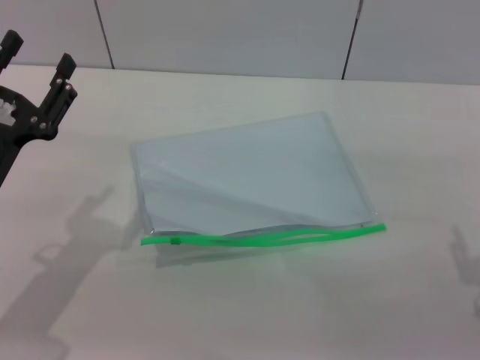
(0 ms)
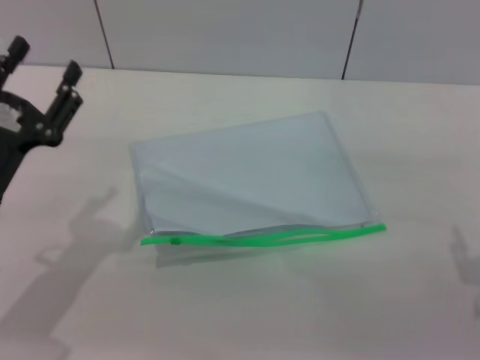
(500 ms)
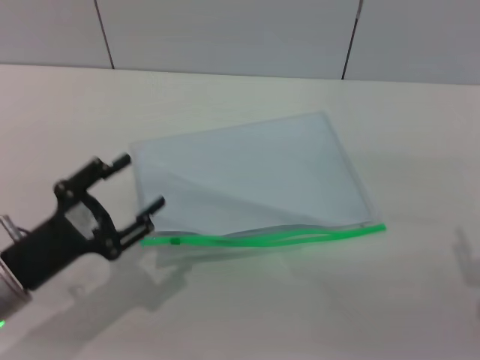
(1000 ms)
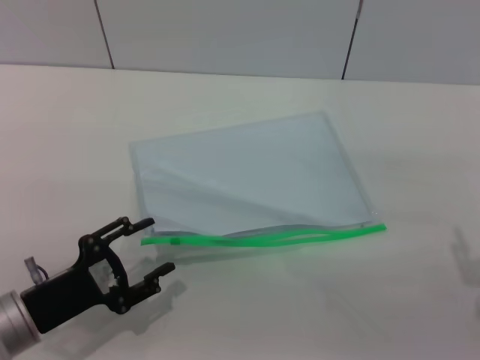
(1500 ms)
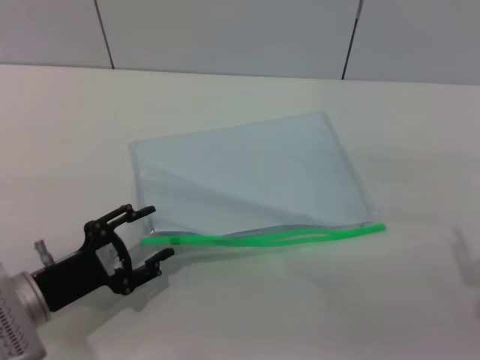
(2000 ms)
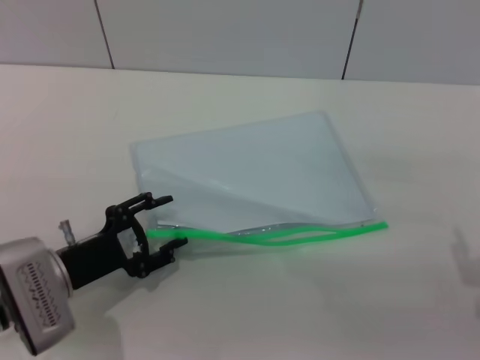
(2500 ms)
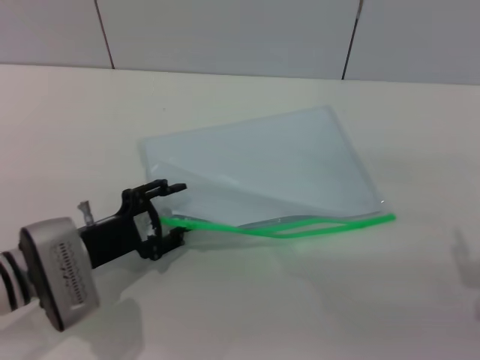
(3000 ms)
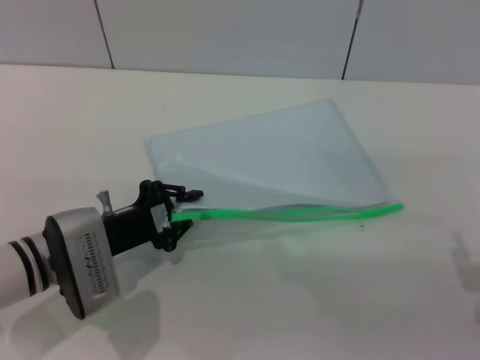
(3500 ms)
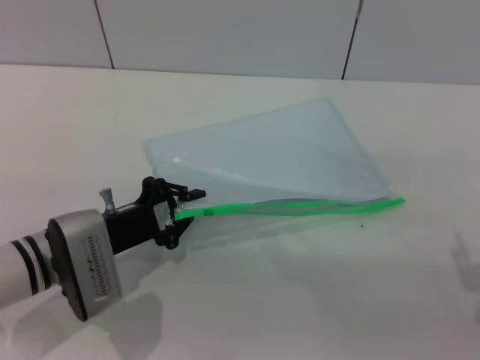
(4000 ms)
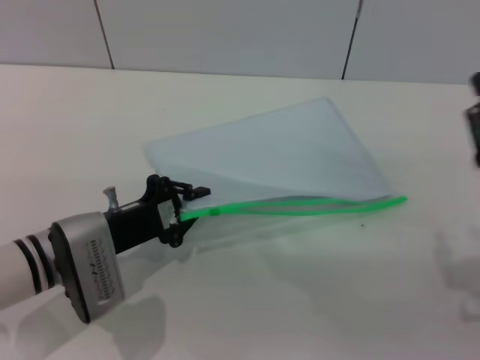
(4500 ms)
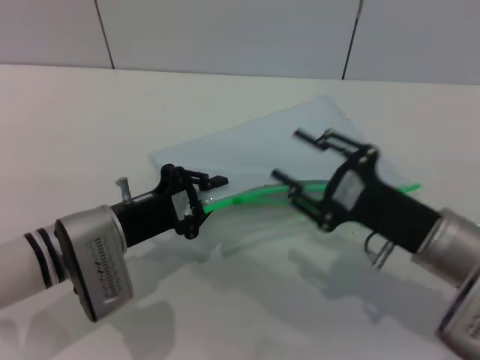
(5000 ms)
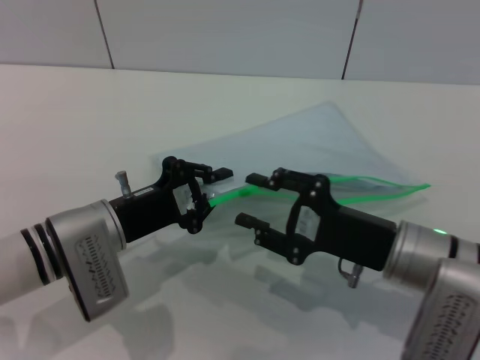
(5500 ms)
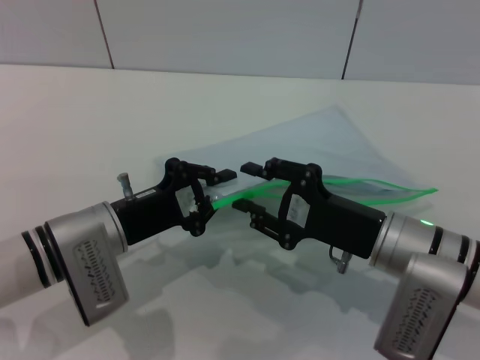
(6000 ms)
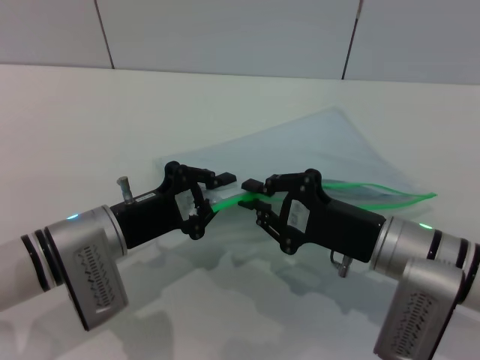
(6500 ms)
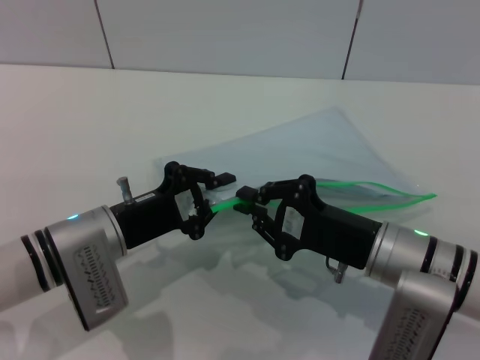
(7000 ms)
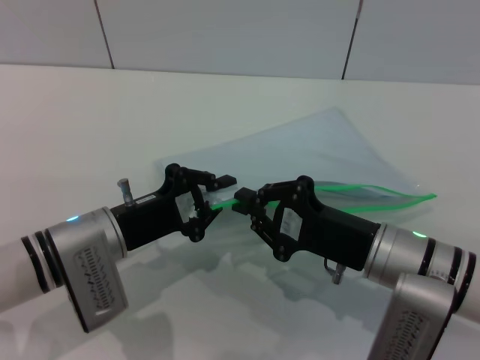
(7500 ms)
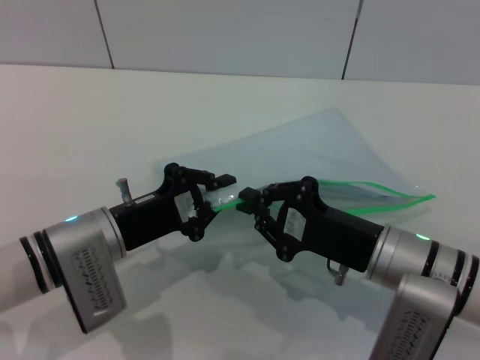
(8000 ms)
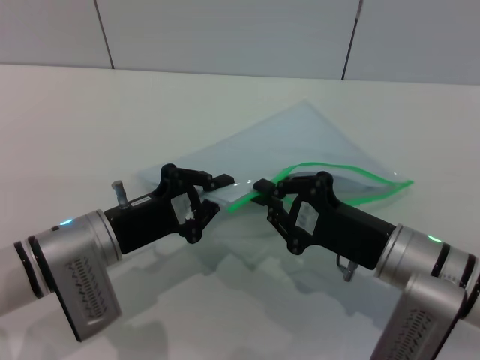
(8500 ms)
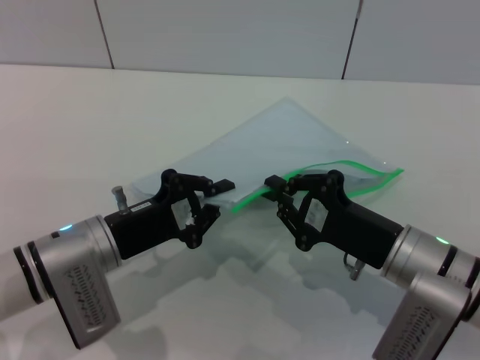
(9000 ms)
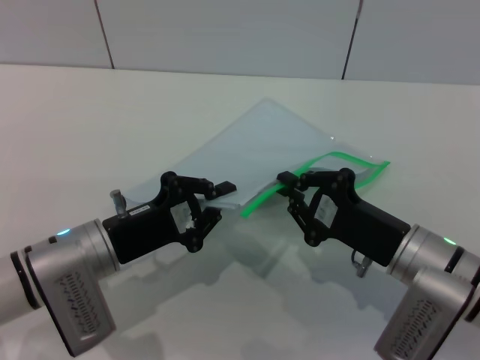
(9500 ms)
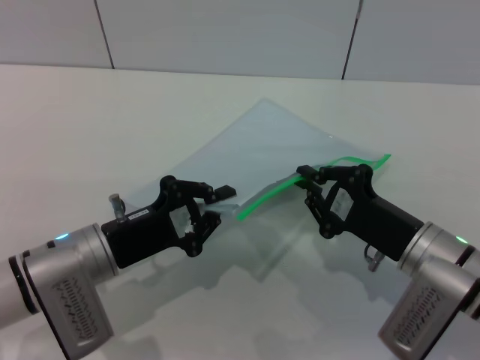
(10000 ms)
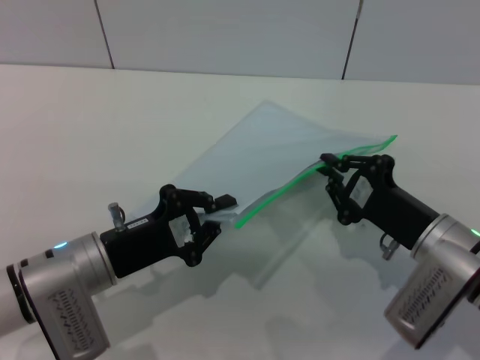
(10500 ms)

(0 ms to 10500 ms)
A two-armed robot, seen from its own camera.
Step, 0 ms - 4500 ms: Pick up the transparent plastic bag with the left gripper.
0 ms - 2000 ms: The left gripper goes approximately 5 cm downward.
2000 ms - 4000 ms: The left gripper moves forward, approximately 5 cm, and closes.
4000 ms - 6500 ms: The right gripper is displaced to the left and forward by some 10 cm.
6500 ms - 8500 ms: The grippers move only a little.

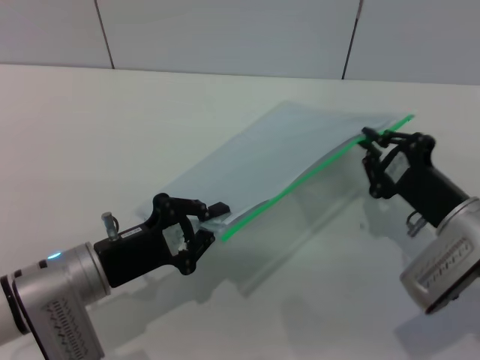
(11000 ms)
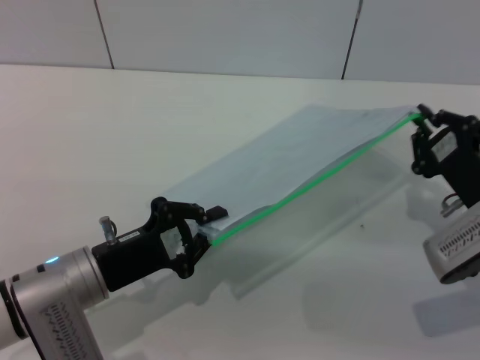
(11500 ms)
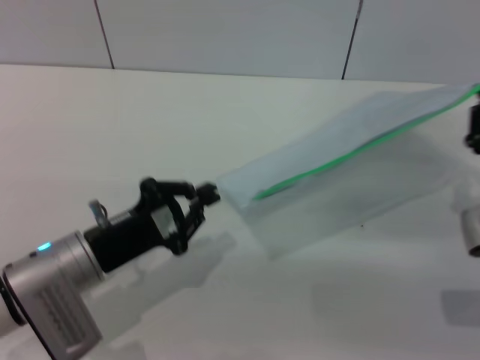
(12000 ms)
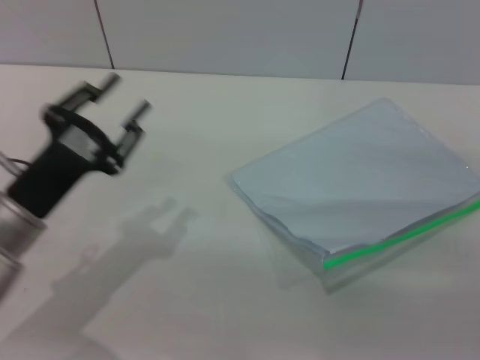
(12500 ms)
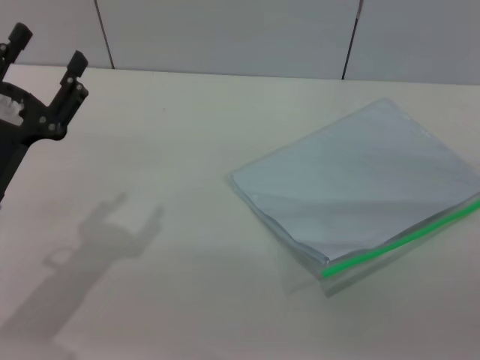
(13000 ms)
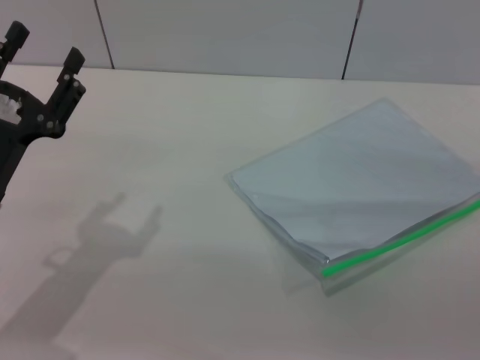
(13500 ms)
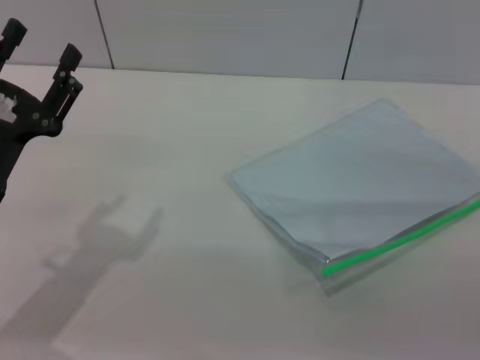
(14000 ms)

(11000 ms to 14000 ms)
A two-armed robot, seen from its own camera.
11000 ms - 12500 ms: The right gripper goes some 10 cm to the right and backward. Meanwhile the left gripper ends up about 5 cm from where it was, and opens its fingers.
12500 ms - 14000 ms: The left gripper opens its fingers.

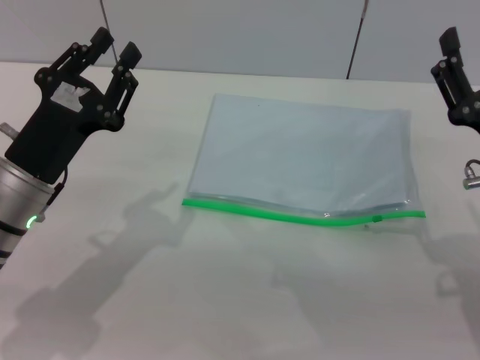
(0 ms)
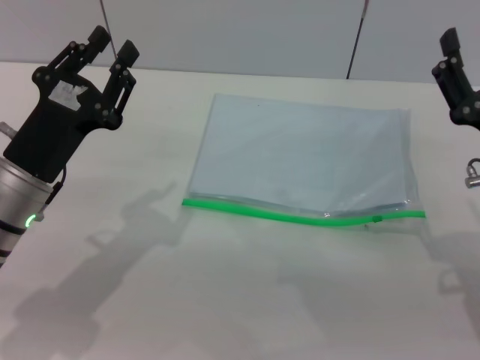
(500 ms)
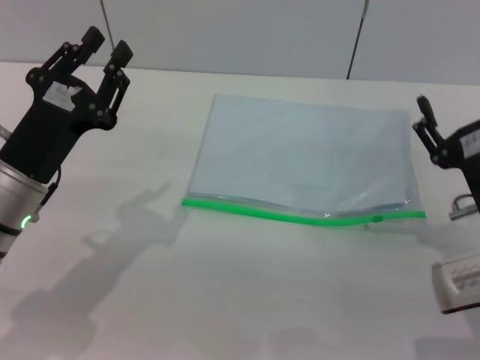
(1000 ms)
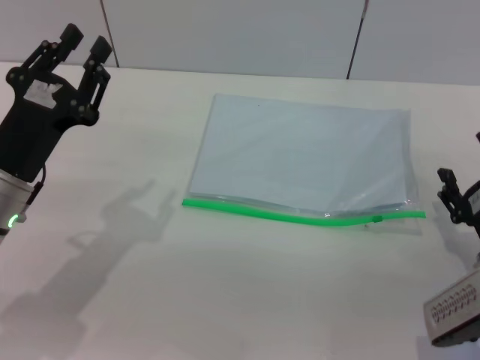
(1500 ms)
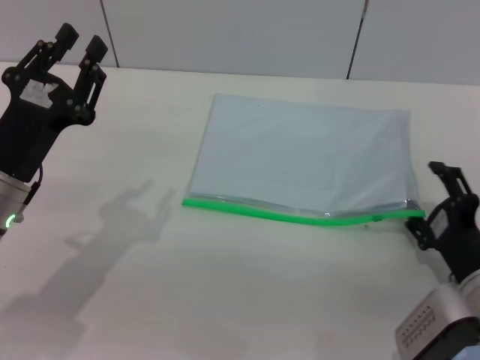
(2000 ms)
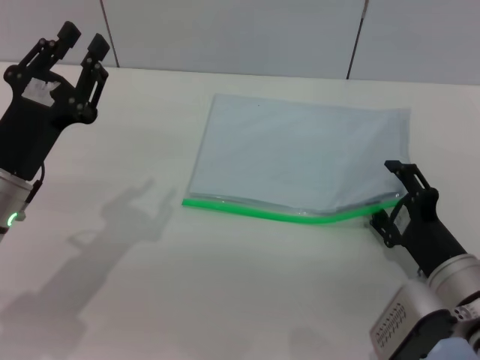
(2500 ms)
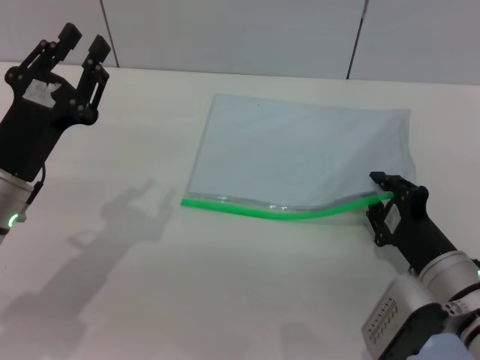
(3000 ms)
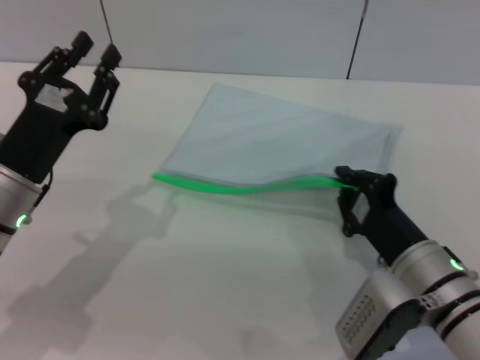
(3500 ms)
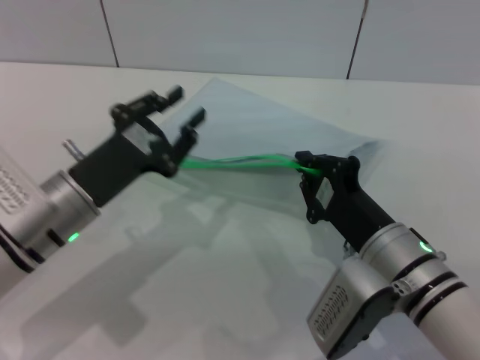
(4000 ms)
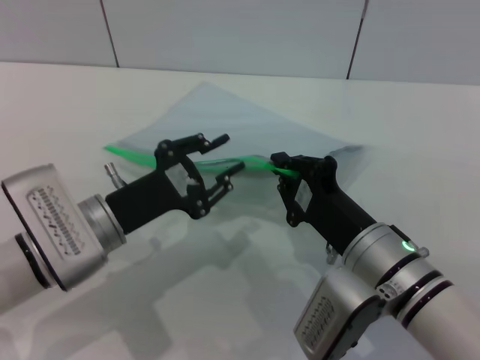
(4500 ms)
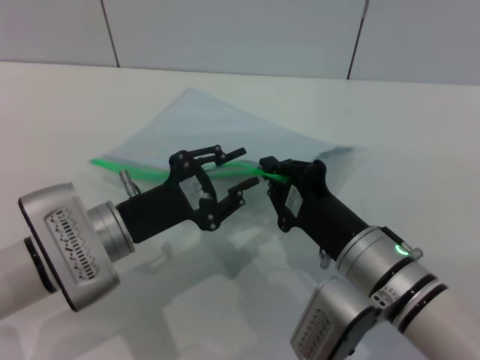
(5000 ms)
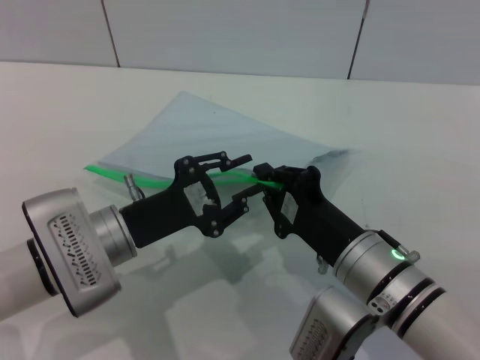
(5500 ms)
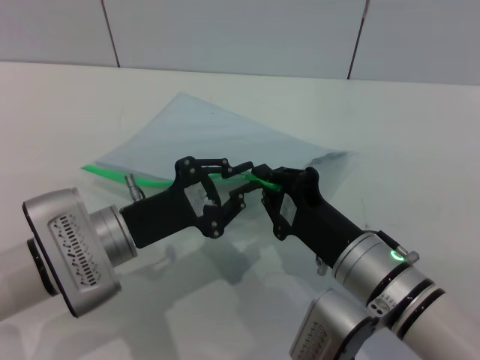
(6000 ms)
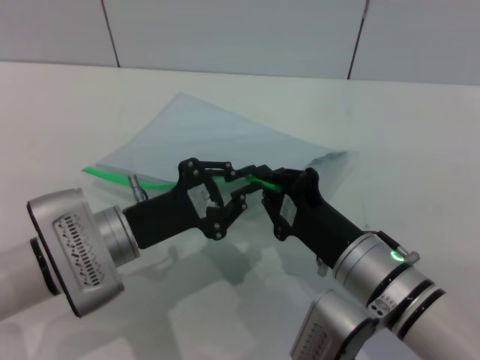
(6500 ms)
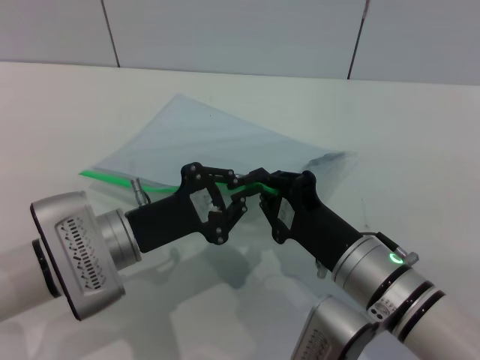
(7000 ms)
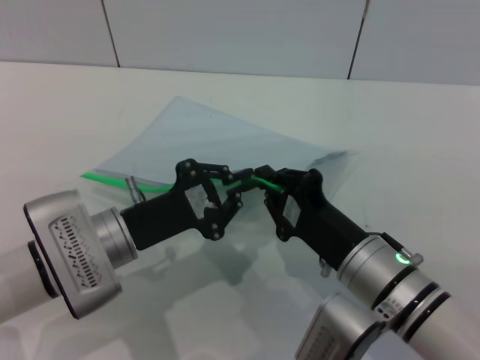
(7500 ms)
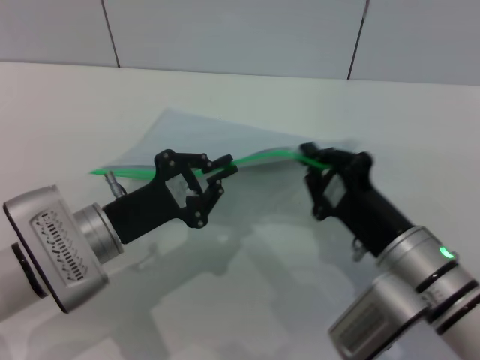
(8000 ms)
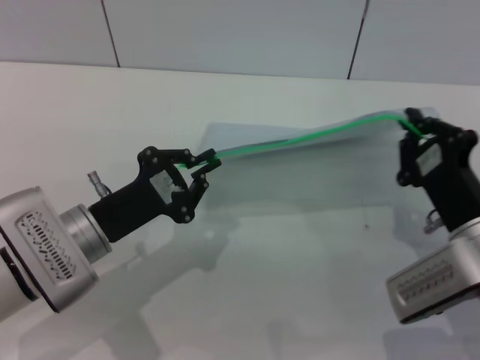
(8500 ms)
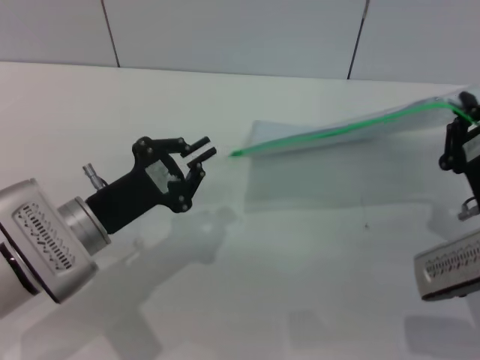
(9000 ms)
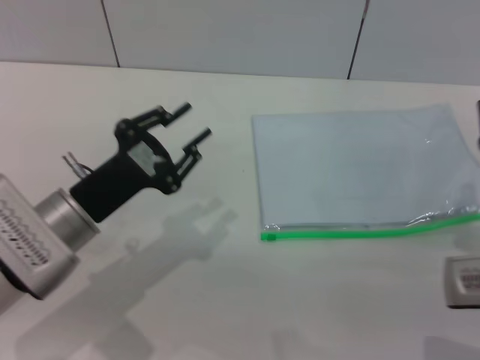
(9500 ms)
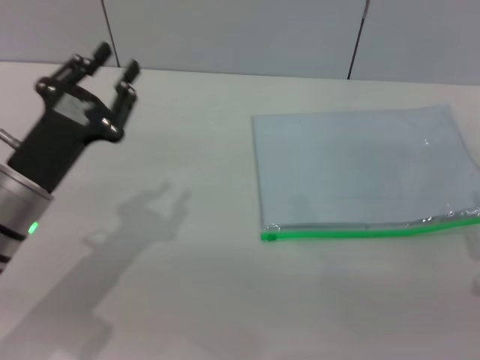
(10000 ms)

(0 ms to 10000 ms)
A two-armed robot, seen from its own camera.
Step, 0 ms - 4000 ms: Pick up the transparent plastic bag with the right gripper.
Step, 4500 ms - 9000 ms: Pulling up the zipper on the transparent plastic bag with the left gripper to close it.
0 ms - 2000 ms: The right gripper travels downward by approximately 10 cm.
2000 ms - 4000 ms: The right gripper heads to the left, covering approximately 10 cm, and closes its fingers.
6000 ms - 8000 ms: The left gripper closes its fingers.
8000 ms - 10000 ms: The left gripper moves approximately 5 cm, and opens. The right gripper travels to the right by about 10 cm, and opens its fingers.

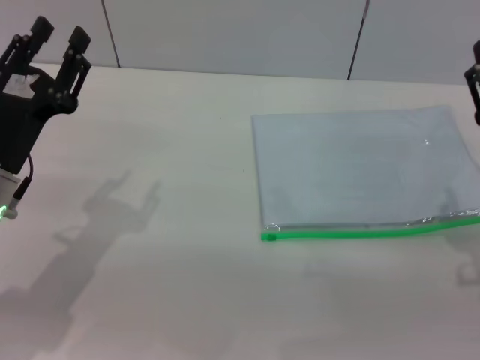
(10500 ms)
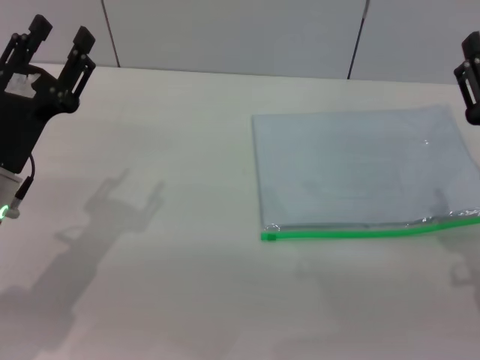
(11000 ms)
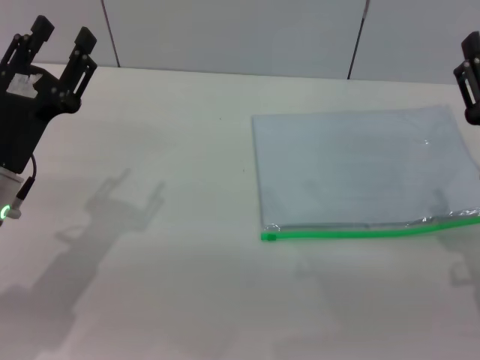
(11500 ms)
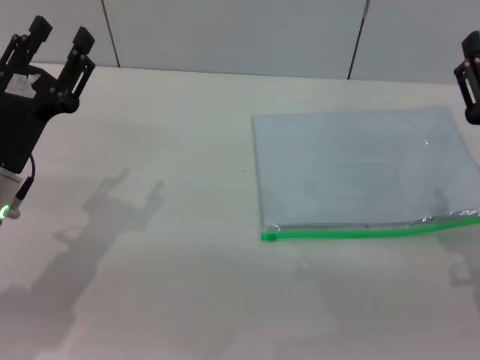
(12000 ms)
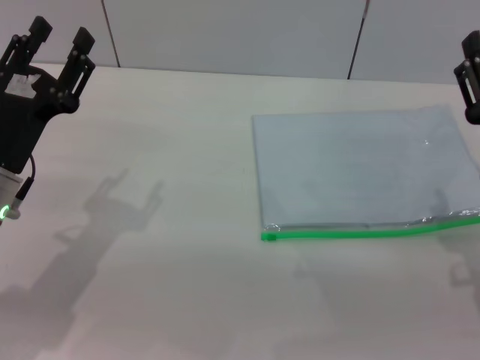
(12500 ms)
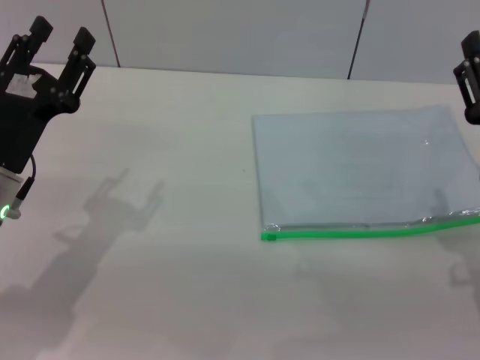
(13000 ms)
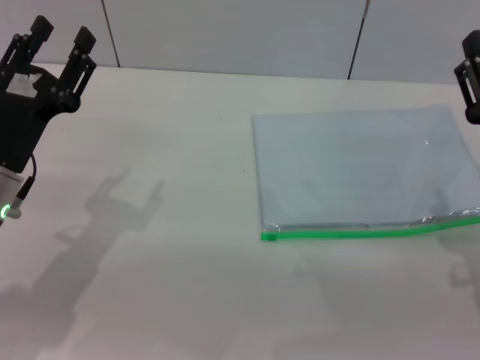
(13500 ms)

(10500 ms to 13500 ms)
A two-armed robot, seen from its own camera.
10500 ms - 13500 ms: Neither gripper changes place.
